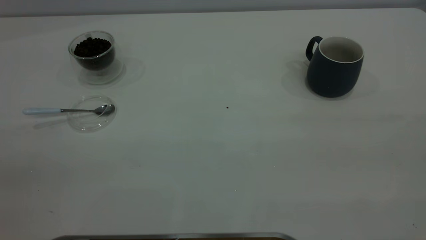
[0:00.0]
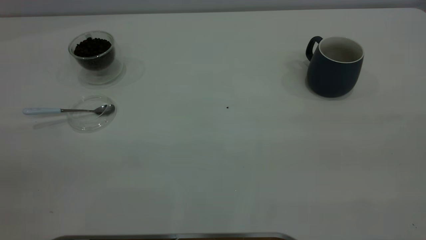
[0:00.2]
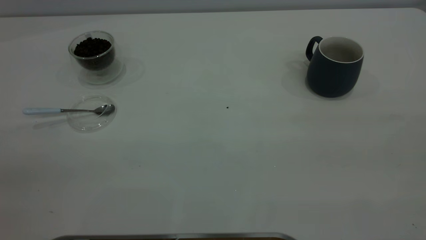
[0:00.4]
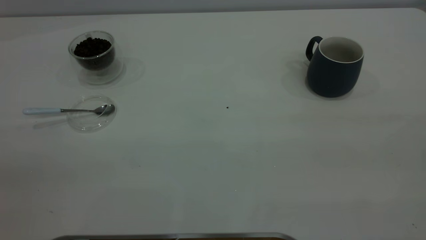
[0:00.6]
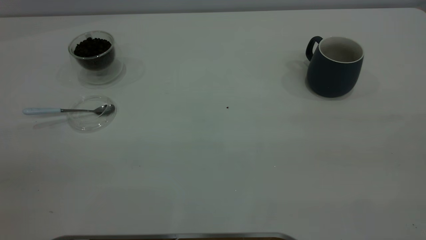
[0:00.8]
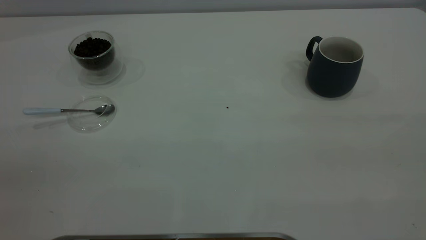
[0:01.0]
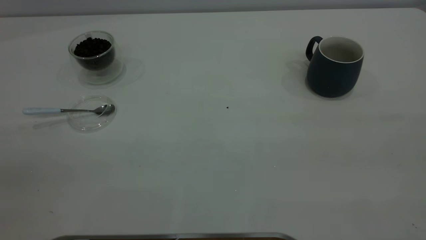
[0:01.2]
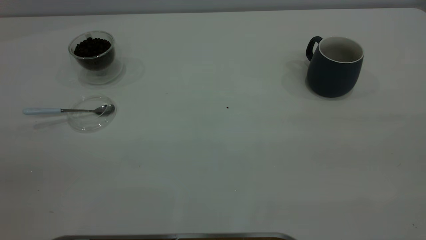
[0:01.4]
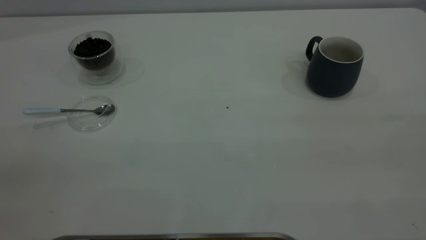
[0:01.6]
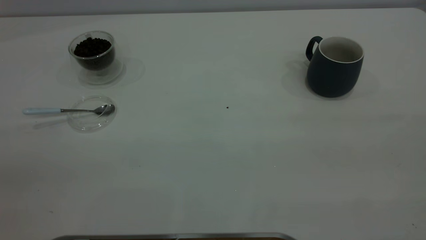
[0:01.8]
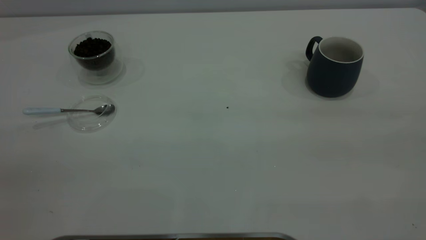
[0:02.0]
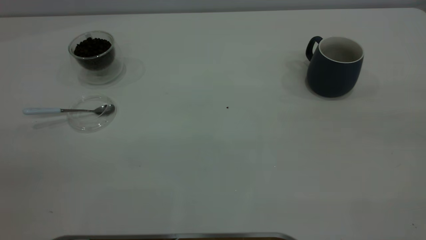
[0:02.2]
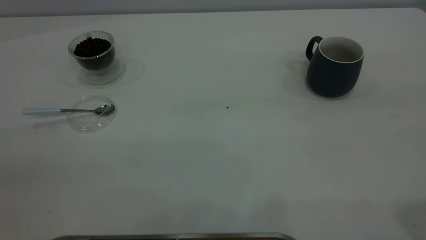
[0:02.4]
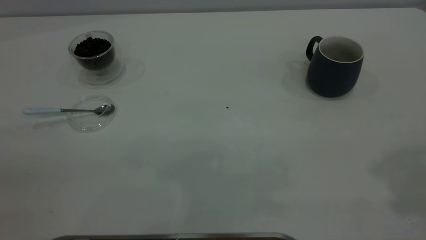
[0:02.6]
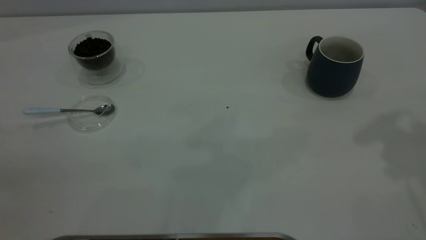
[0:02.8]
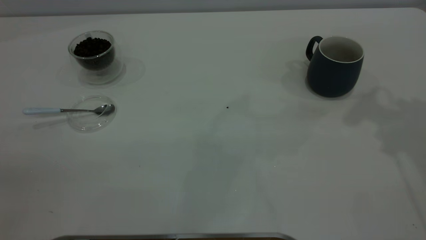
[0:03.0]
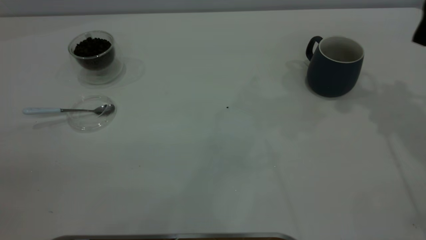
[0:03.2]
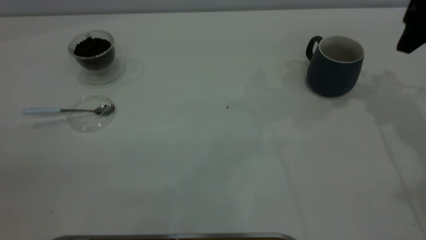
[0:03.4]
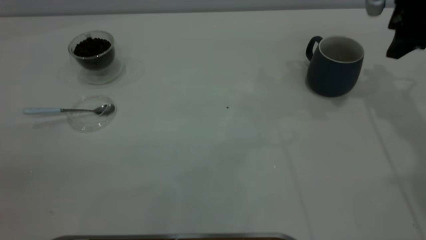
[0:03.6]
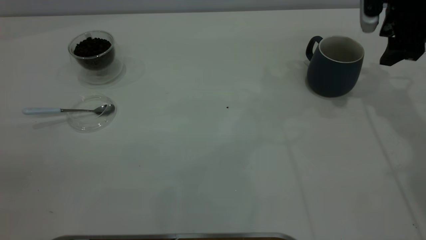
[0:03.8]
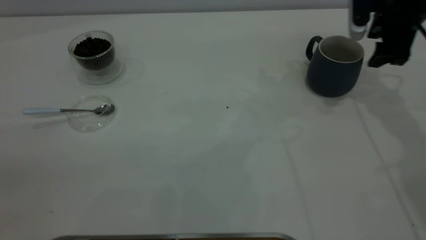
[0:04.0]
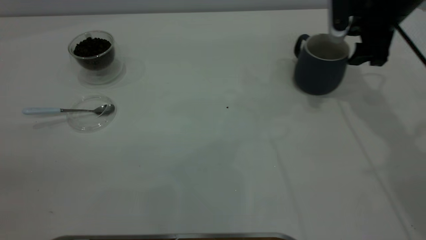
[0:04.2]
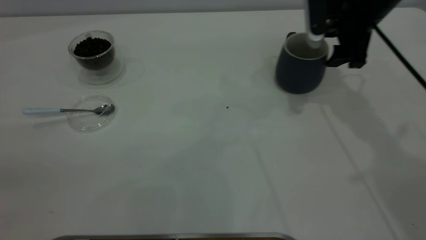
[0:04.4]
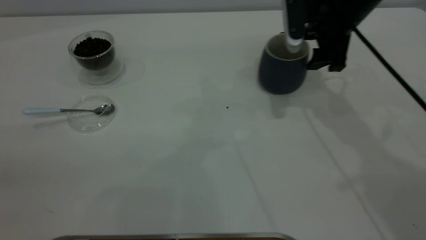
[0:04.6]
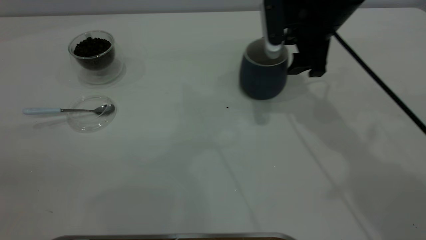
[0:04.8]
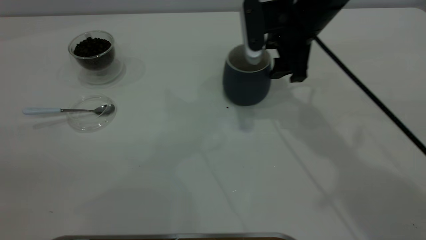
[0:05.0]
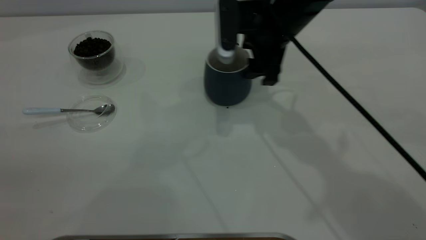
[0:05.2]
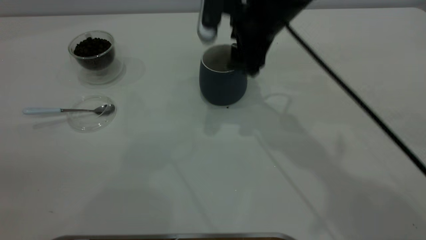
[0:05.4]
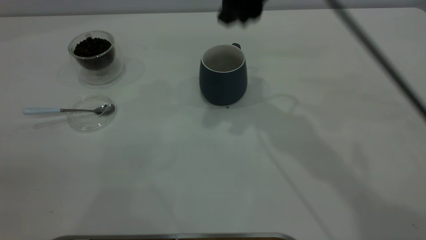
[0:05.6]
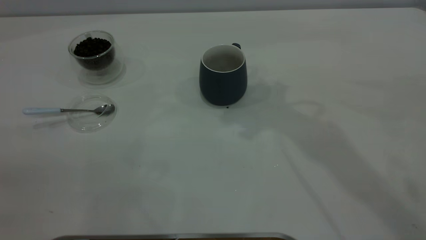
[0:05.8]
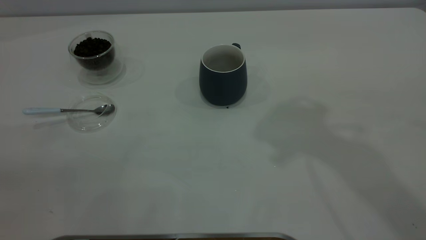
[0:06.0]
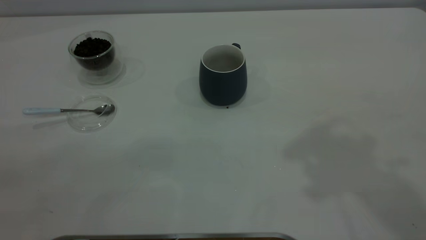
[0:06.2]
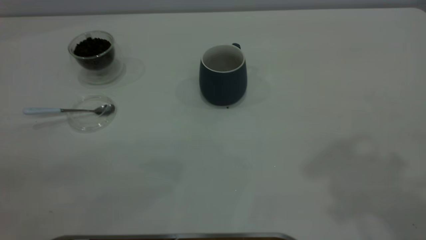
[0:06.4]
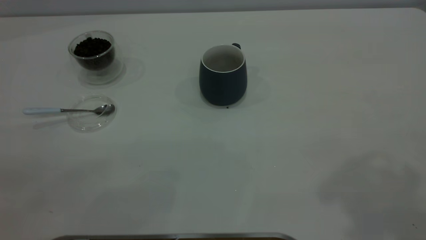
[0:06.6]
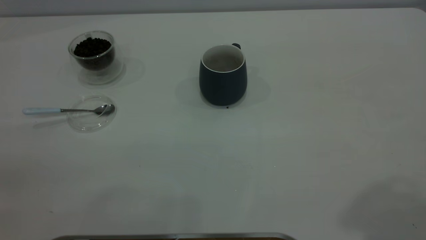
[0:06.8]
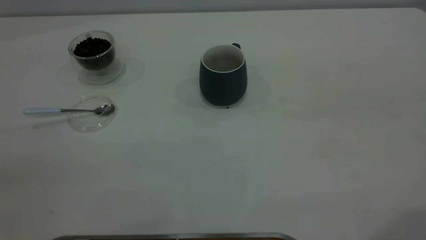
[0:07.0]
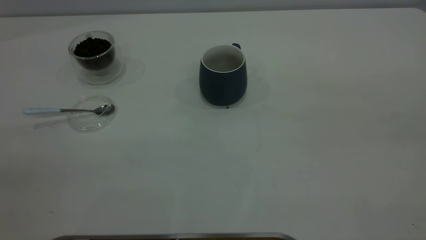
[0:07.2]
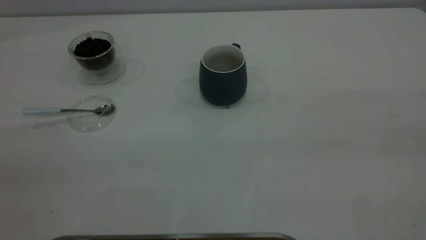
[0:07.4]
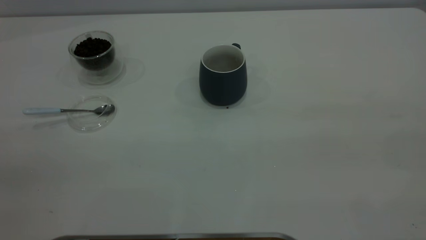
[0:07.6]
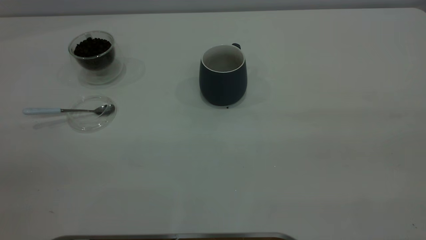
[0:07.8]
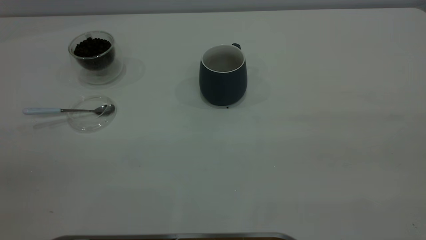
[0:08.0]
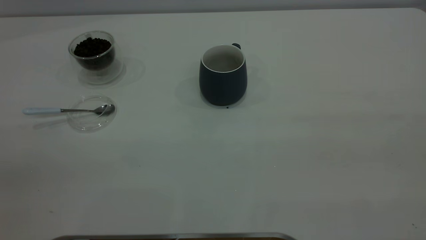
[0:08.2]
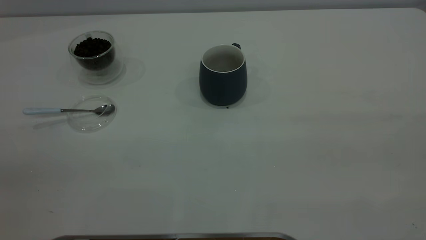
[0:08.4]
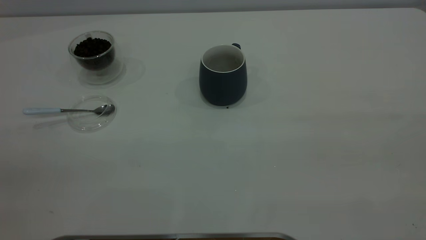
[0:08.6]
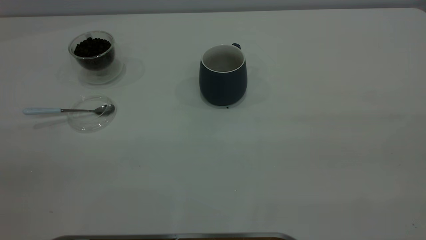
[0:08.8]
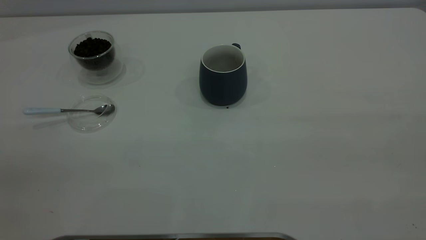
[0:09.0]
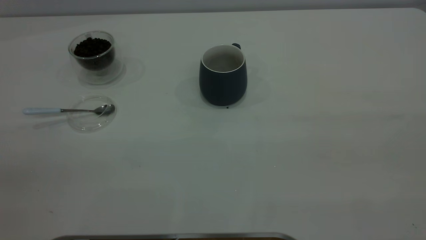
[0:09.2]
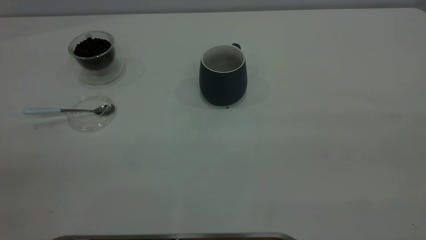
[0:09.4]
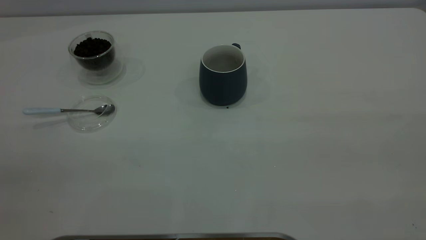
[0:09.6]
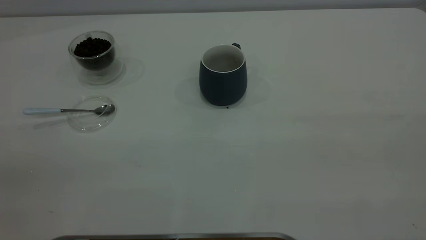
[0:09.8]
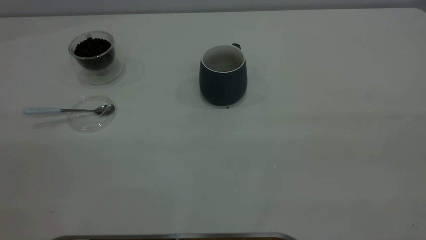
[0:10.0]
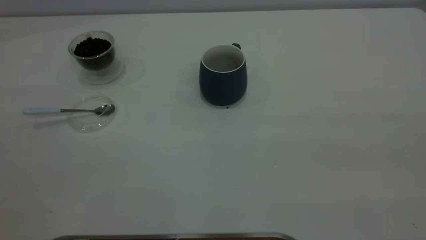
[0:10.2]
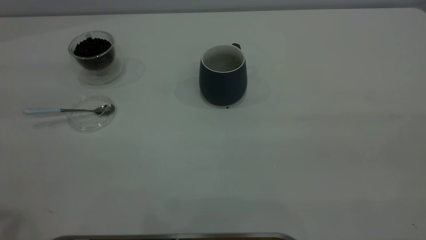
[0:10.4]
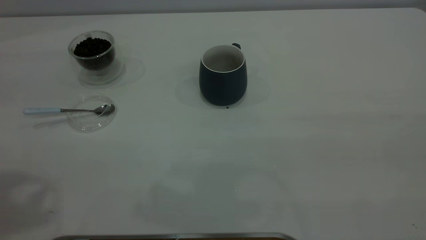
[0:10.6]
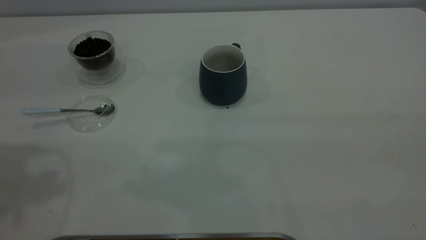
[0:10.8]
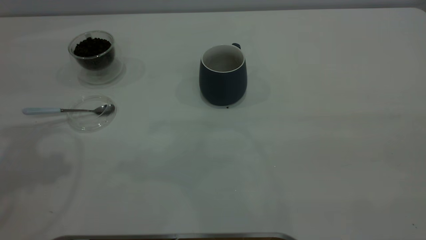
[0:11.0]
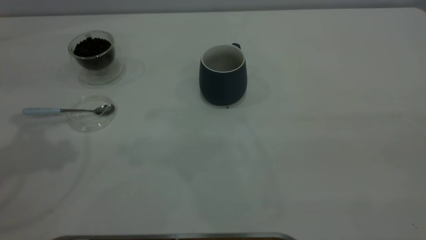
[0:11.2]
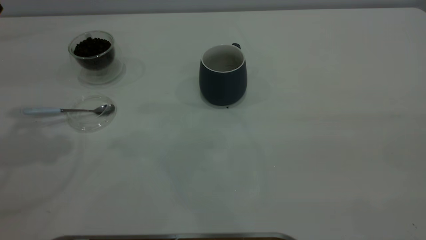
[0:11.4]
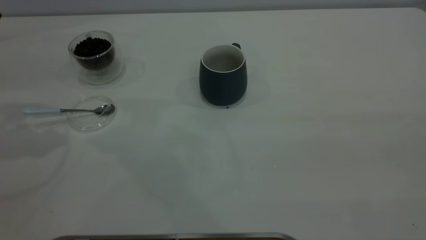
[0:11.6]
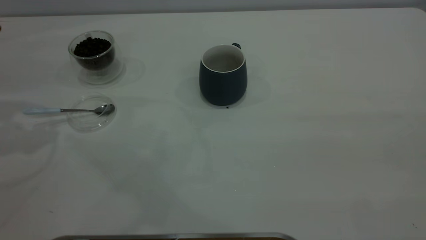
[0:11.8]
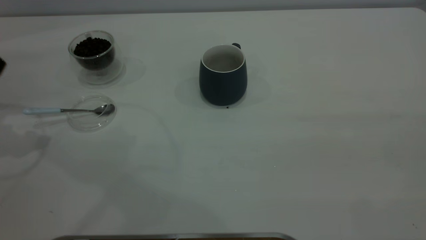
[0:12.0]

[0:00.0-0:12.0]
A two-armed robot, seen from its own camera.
Task of the whole recording: the right gripper place the grey cup in the center of the table, the left gripper take the blue spoon from the cup lid and scoop out the coffee beans from the coffee cup and put them into the grey cup, the left gripper put the spoon back into the cup lid.
Step, 0:00.0 to 0:05.4: Move the cup to the center of view.
0:00.0 to 0:01.6: Both grippers stay about where they are.
0:03.0 to 0:04.4: The right gripper is displaced downward, to the left and forward by some 20 cm, and closes.
0:04.4 to 0:06.0: The right gripper heads upward and backward, covering approximately 30 cm, and closes up.

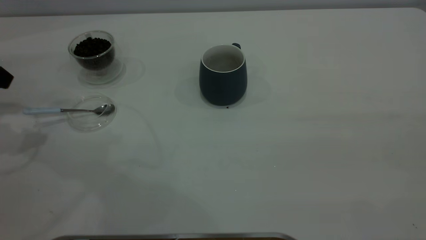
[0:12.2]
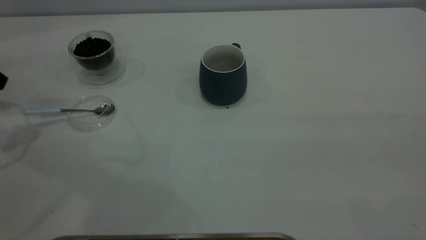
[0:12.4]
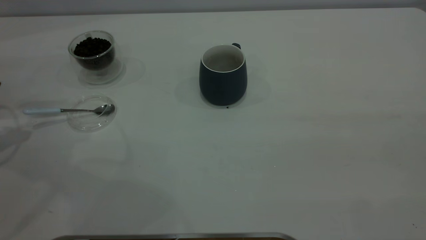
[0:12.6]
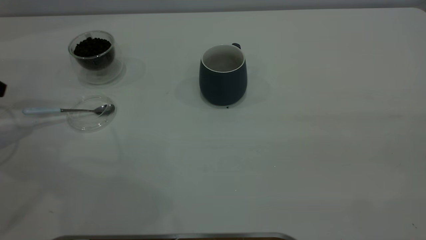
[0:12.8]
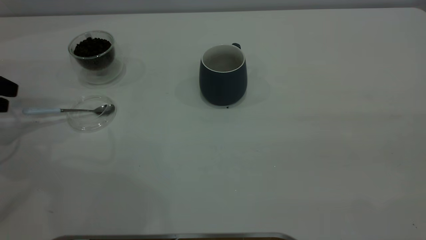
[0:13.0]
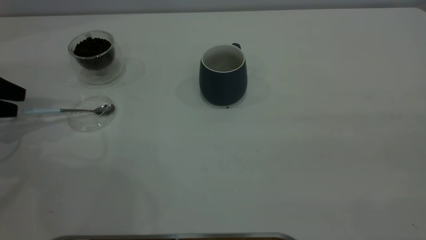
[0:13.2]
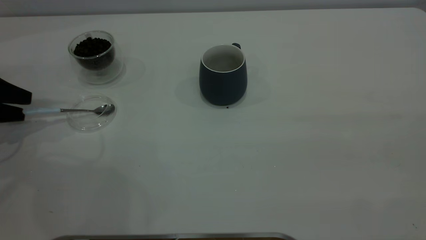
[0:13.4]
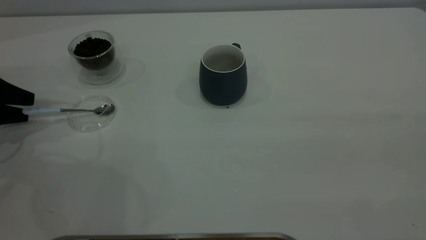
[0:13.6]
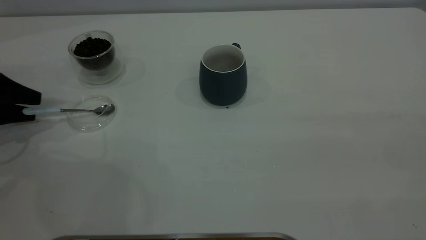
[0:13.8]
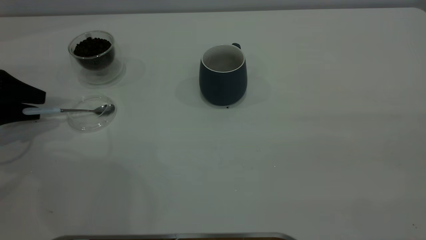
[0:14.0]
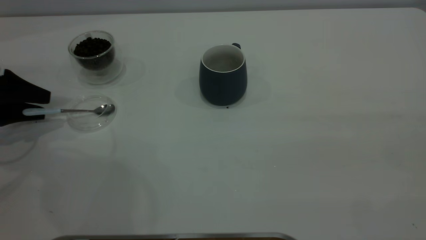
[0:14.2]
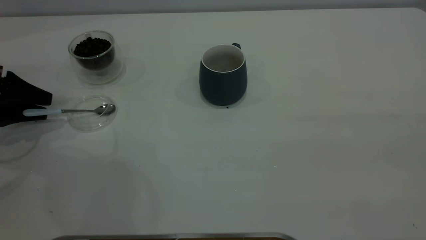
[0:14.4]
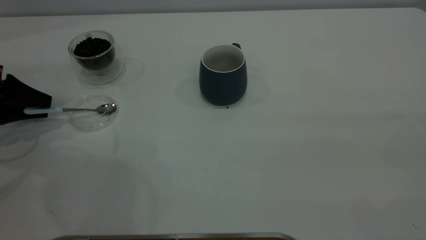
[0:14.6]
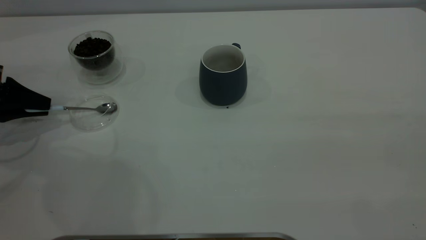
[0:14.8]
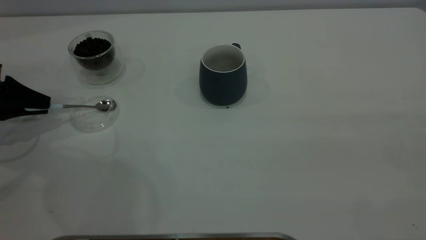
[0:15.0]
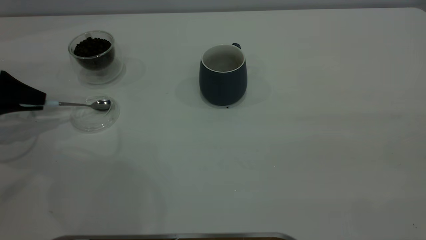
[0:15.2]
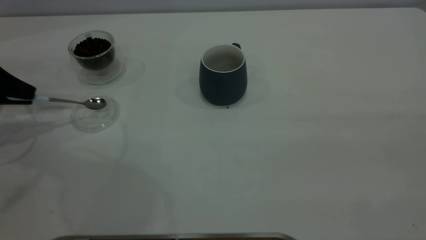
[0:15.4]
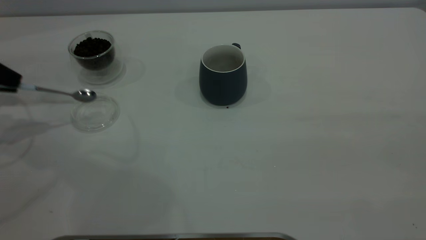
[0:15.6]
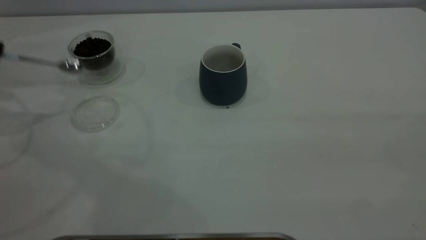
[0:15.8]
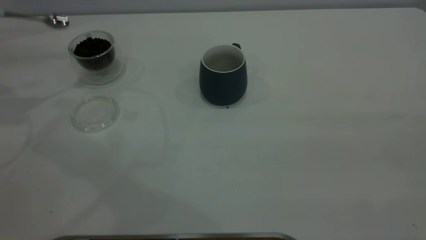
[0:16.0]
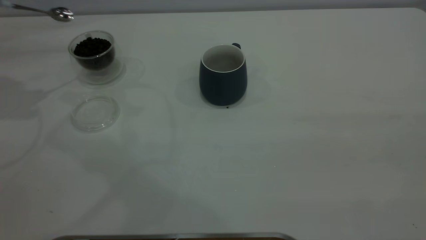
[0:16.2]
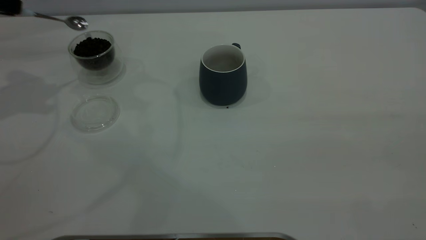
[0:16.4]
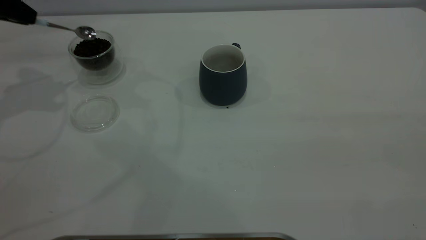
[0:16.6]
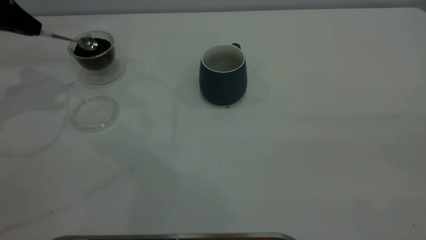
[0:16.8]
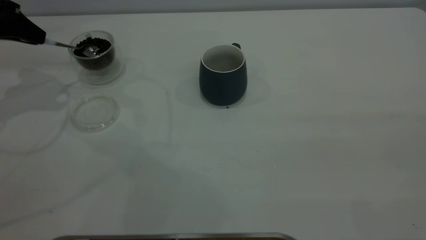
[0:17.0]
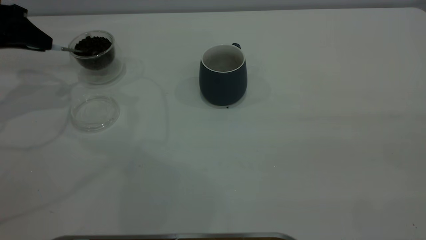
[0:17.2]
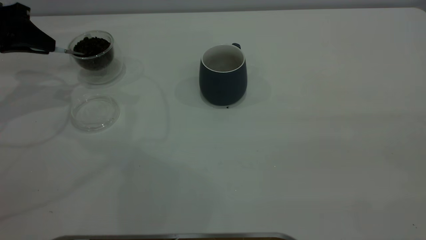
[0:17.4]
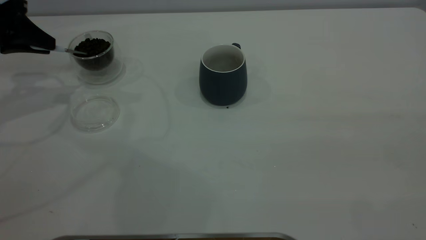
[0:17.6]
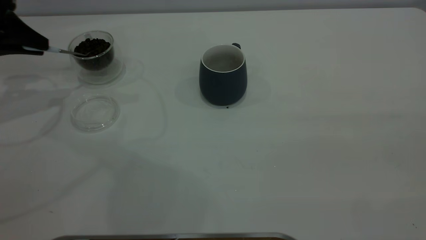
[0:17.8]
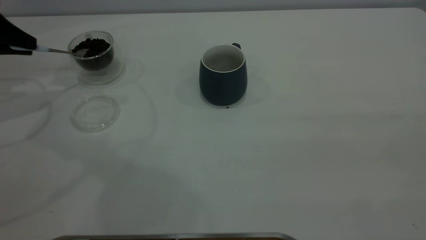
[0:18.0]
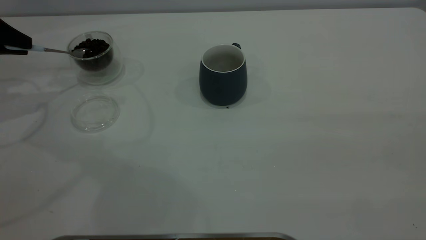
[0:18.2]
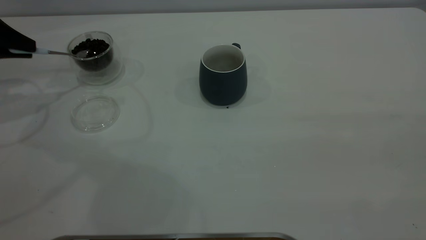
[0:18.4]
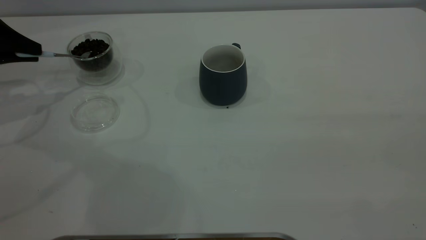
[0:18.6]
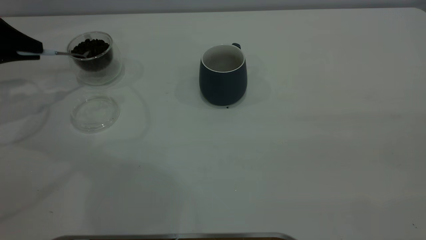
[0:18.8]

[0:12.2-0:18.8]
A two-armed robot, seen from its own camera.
Task of the whole recording: the right gripper place the grey cup in the center of the table, the left gripper take the blue spoon from the cup lid and scoop out the coffee beans from the coffee cup and put them into the grey cup, the left gripper put the spoon back into the cup lid.
Step, 0:12.2 to 0:15.8: Pick up the spoon.
0:12.2 to 0:13.8: The left gripper heads downward, covering some 10 cm.
0:13.8 to 0:15.4: The left gripper shifts about 5 cm upward, and closes up.
0:15.4 to 0:17.2: The left gripper shifts approximately 5 cm forward, and moves some 15 cm upward and comes back.
